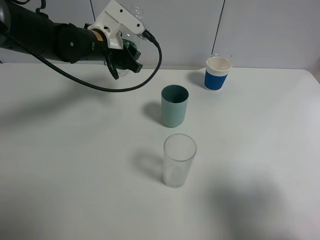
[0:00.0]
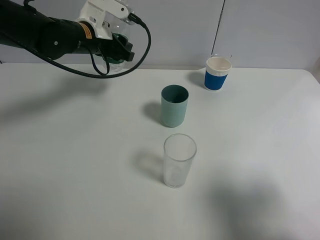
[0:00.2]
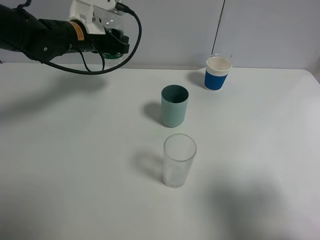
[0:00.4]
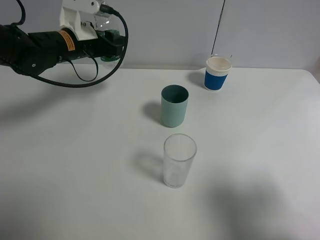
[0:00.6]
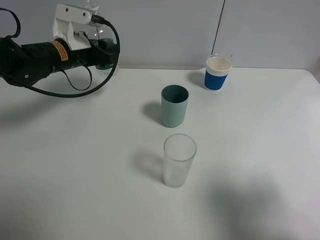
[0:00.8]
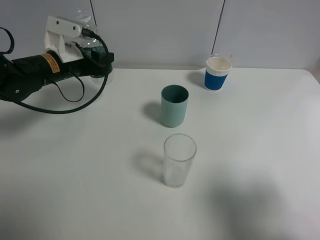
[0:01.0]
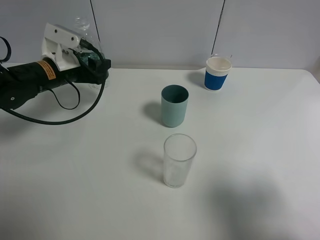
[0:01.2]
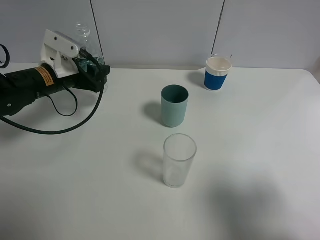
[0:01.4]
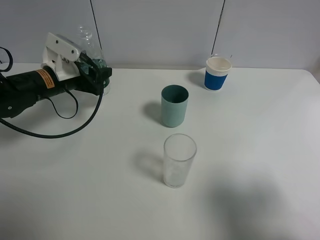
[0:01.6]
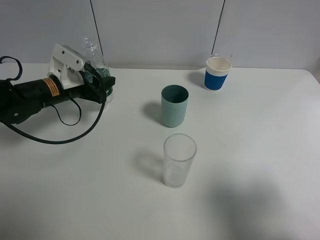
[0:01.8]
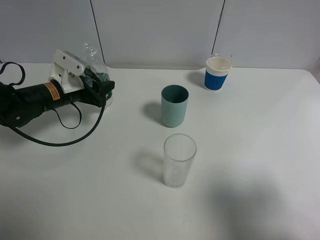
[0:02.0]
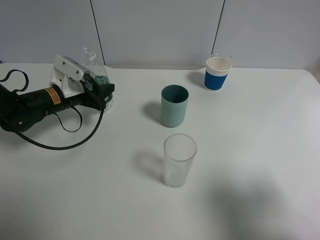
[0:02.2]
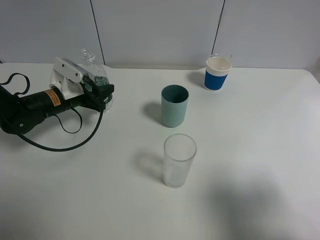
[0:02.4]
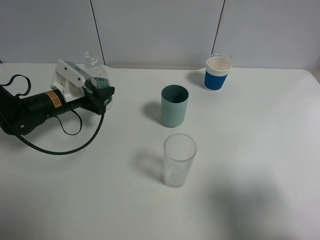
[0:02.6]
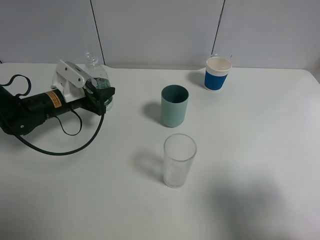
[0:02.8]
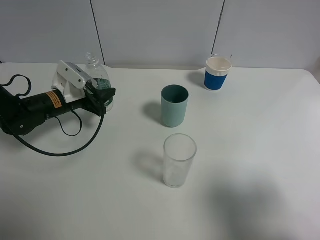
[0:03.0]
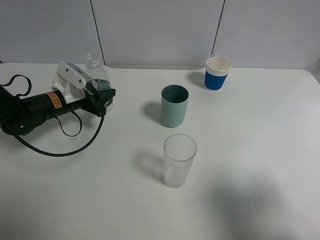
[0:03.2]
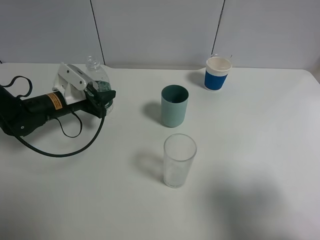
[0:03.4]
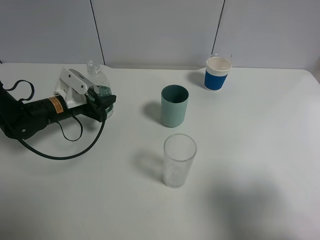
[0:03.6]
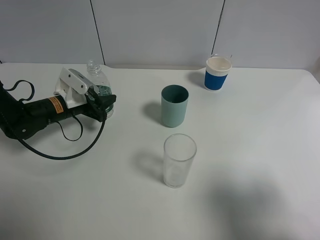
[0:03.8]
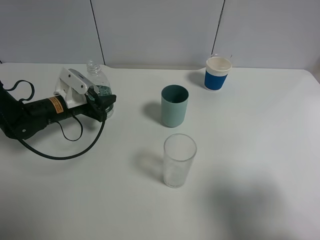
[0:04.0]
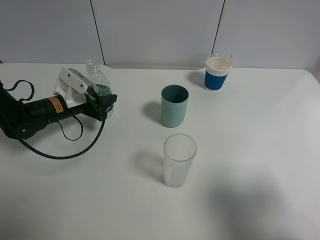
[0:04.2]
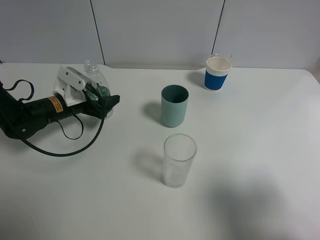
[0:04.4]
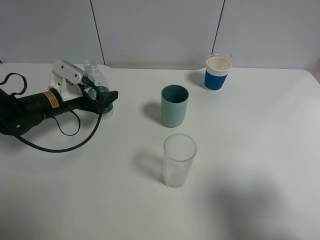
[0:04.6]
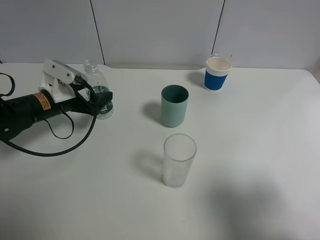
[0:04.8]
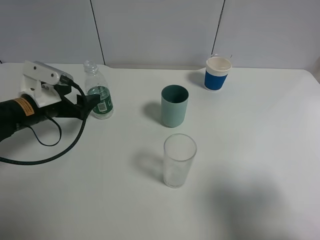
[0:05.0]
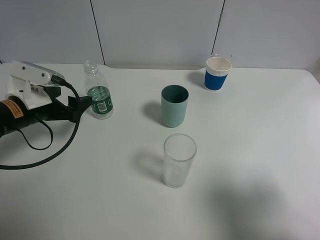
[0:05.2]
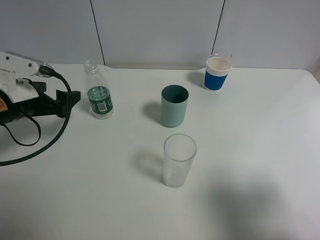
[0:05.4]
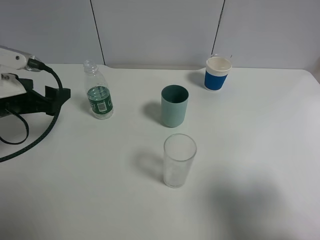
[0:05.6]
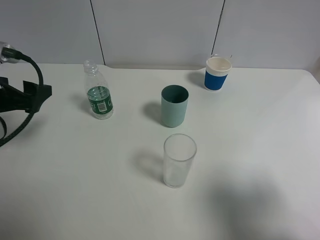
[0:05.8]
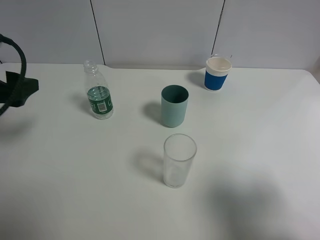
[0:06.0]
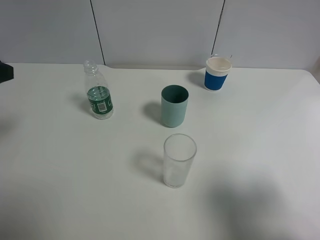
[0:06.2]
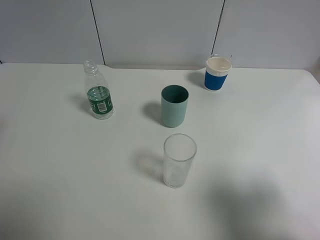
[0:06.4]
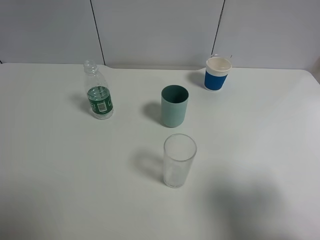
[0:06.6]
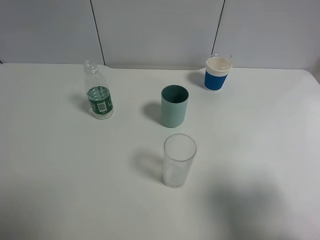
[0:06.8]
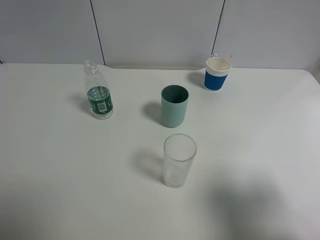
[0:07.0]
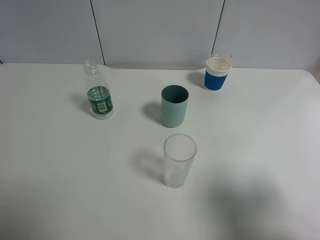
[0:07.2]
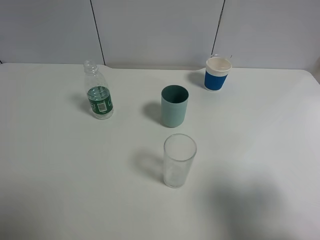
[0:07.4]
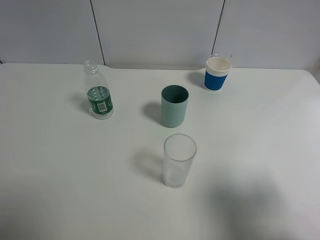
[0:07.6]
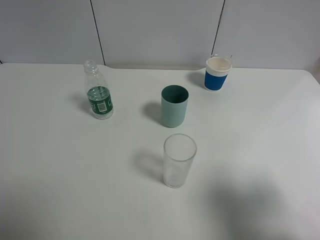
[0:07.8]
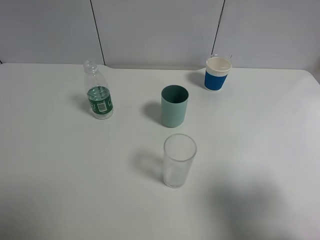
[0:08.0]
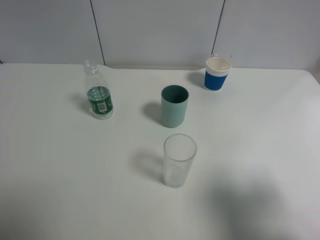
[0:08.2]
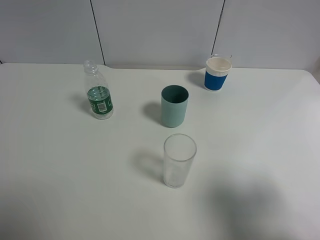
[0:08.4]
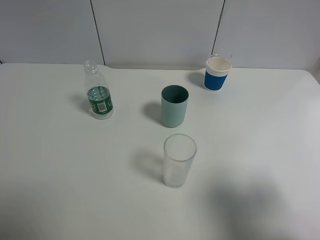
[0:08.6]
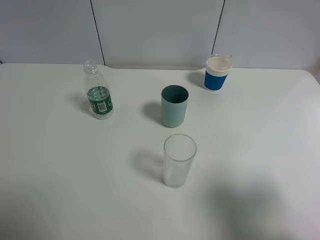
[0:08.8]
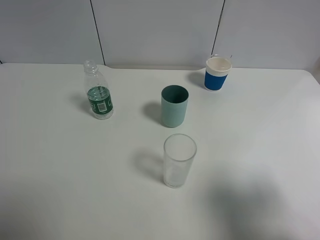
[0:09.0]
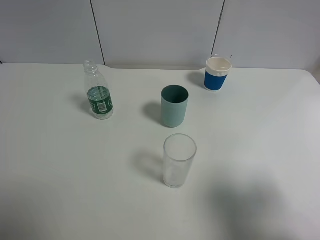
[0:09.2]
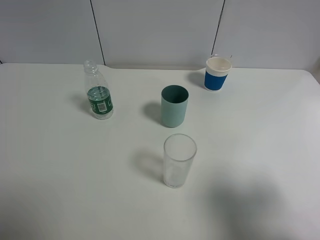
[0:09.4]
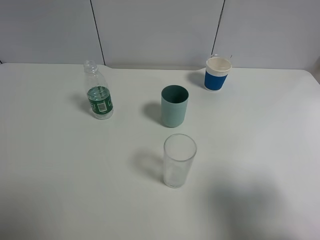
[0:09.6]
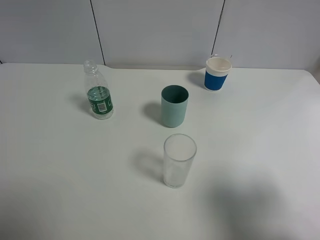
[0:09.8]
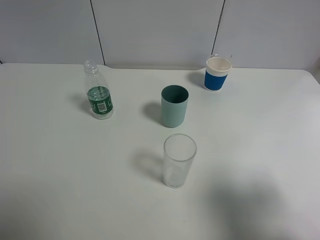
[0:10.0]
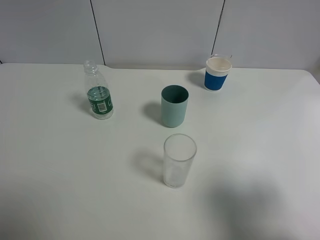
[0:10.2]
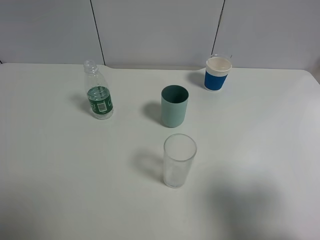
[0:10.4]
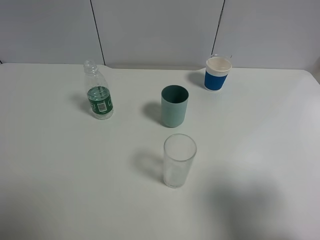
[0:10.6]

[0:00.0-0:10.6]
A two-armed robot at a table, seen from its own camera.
Task of the whole recording: use a gripper to hold the bottle of the drink and pour it into a random cup.
Step, 0:00.0 to 0:04.8: Place the mineral water bottle on the table with the left gripper.
0:00.0 to 0:01.6: The left gripper heads to the left, downward and backward, covering roughly 10 cm.
0:01.6 to 0:03.0: The left gripper moves downward, about 5 cm.
0:03.0 to 0:04.6: The left gripper opens.
0:04.6 to 0:06.0: The left gripper heads upward, backward and to the left, covering some 20 cm.
0:06.0 to 0:07.6: The left gripper shifts about 20 cm backward and upward.
0:09.0 to 0:10.6: Both grippers stay about where they are.
